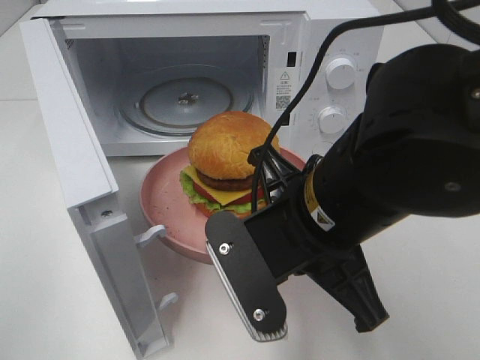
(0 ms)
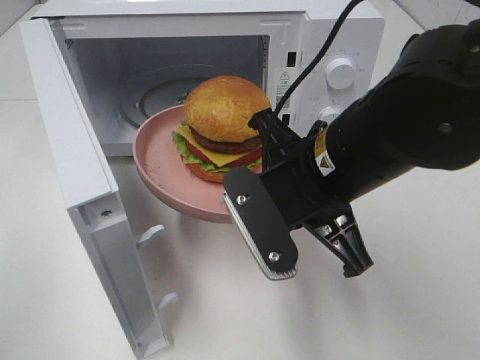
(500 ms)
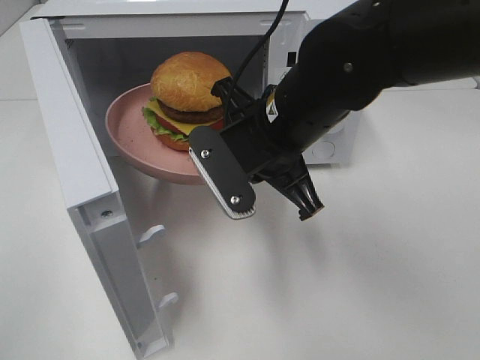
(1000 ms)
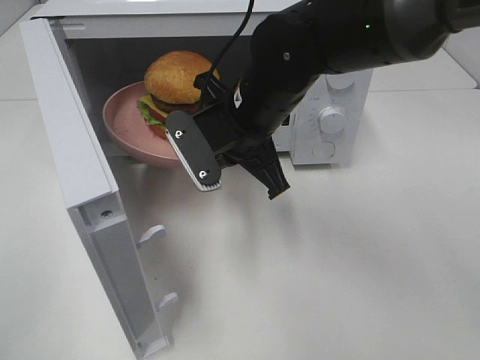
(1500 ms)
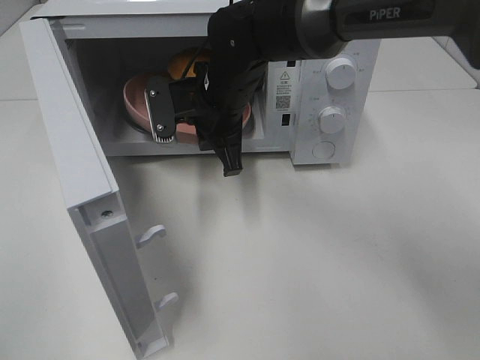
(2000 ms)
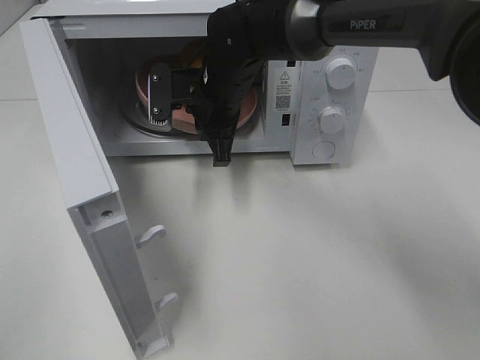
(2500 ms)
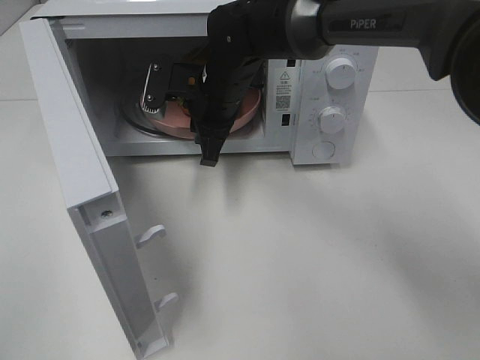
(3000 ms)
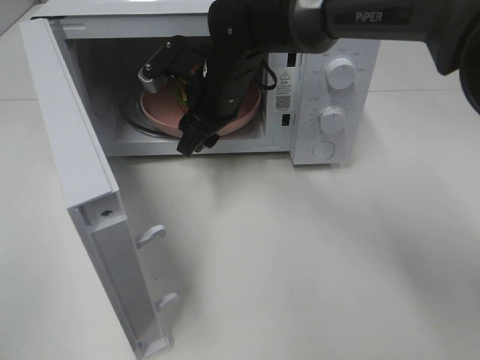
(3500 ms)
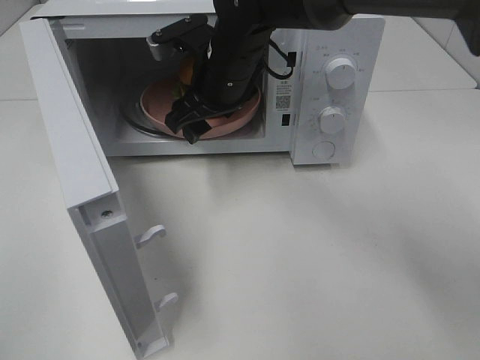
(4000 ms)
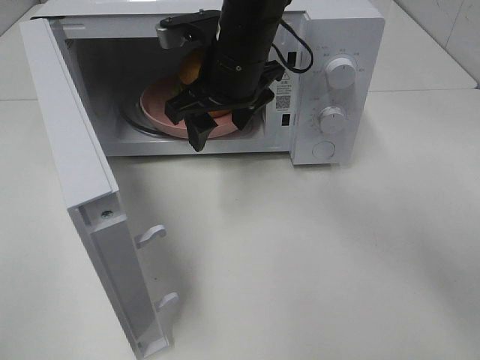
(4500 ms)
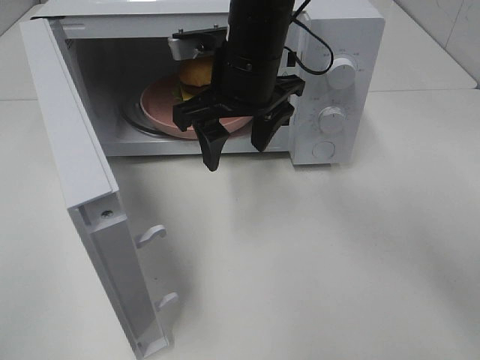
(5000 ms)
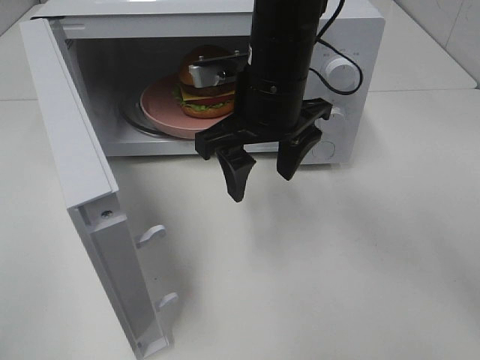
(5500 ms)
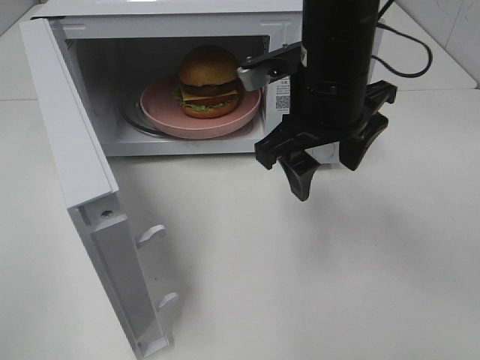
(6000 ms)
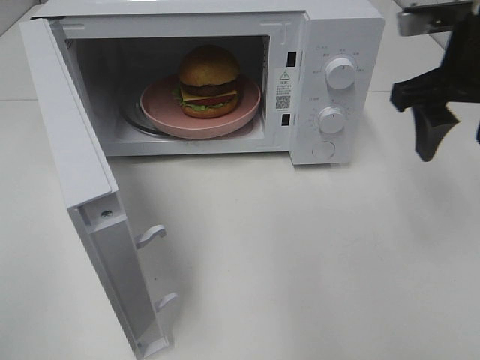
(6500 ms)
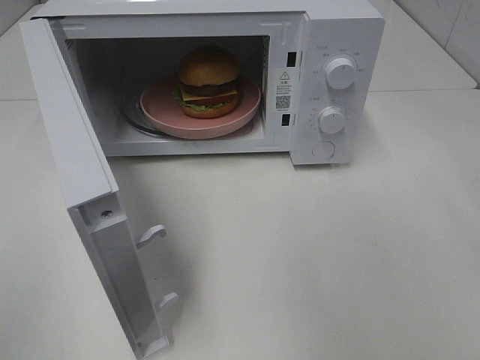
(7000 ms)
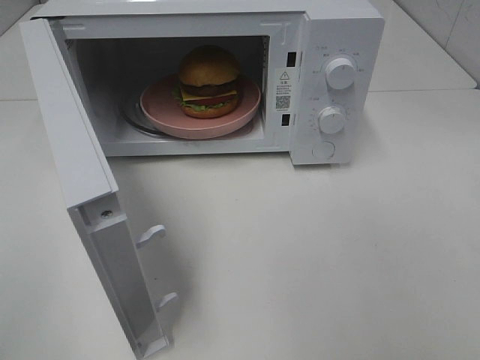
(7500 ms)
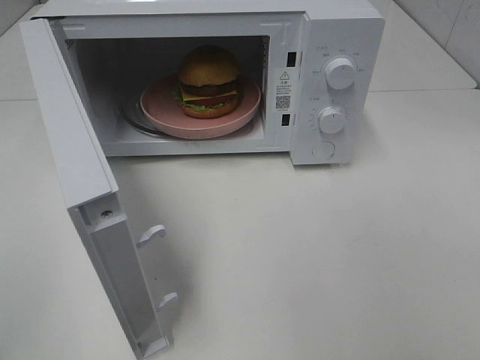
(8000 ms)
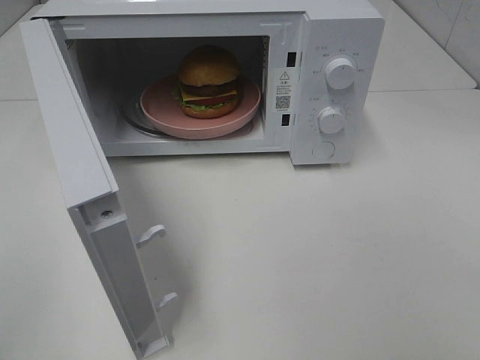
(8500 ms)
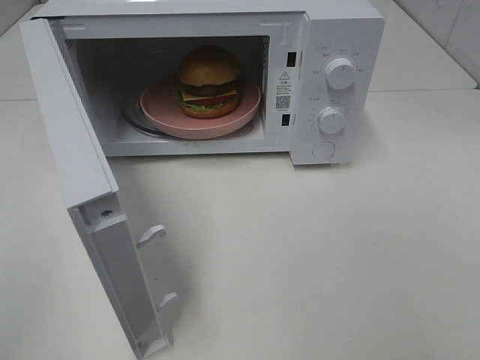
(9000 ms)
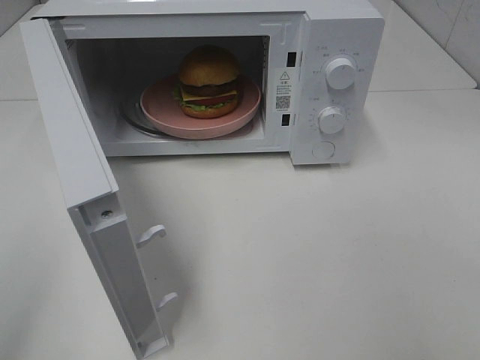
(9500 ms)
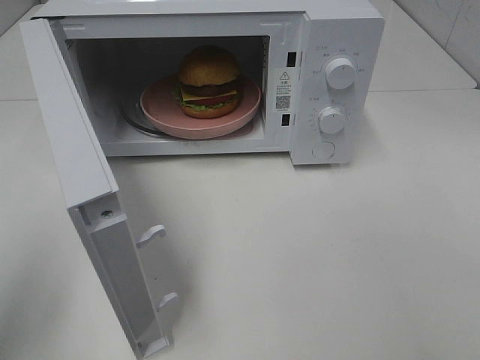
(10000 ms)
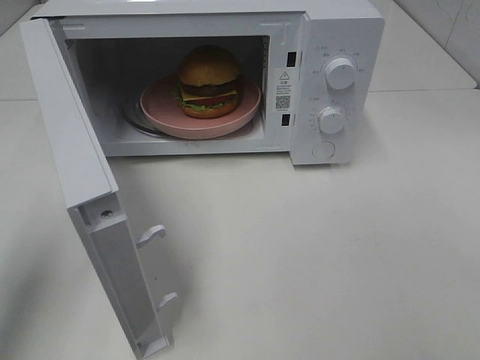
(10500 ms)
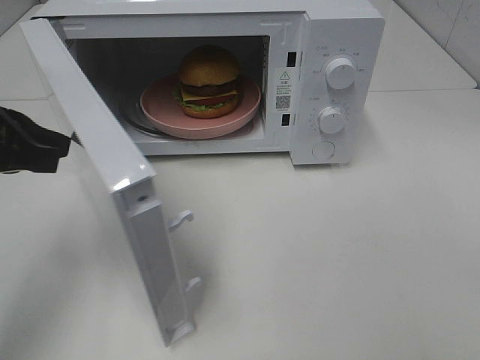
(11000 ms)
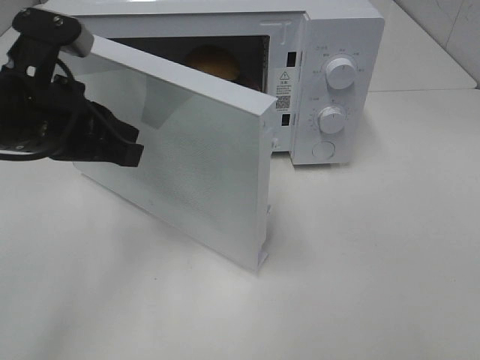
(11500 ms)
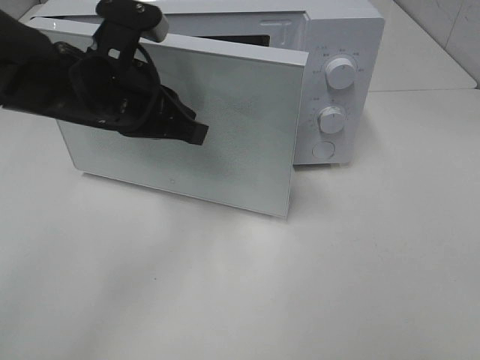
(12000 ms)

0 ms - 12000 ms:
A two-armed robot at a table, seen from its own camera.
Task of the whole recording: Heat the burger.
Step, 0 ms - 3000 ms: Right hand: place the plate in the microwave.
0 ms - 2000 ms: The right gripper goes roughly 20 cm forward.
2000 ms - 4000 ms: The right gripper opens.
4000 ms - 6000 ms: The right gripper goes some 15 cm backward and to the right.
6000 ms - 8000 ms: The right gripper heads backward and to the right, covering some 35 cm.
8000 ms - 10000 ms: The left gripper goes approximately 10 cm forward.
10000 ms - 12000 ms: The left gripper travels to the right, forward and downward by roughly 25 cm.

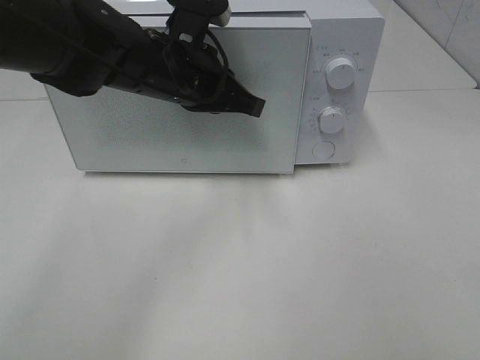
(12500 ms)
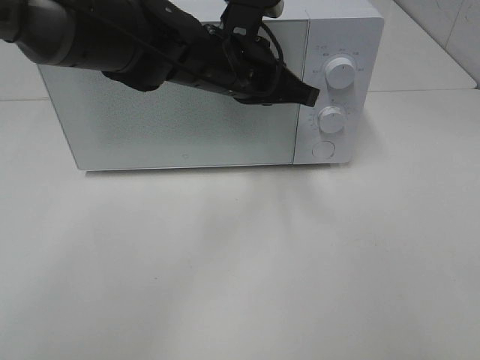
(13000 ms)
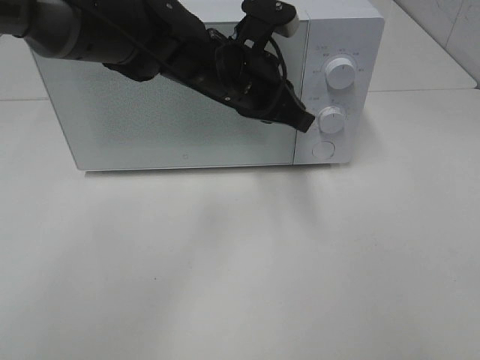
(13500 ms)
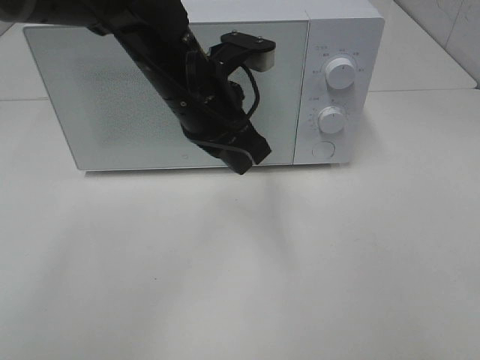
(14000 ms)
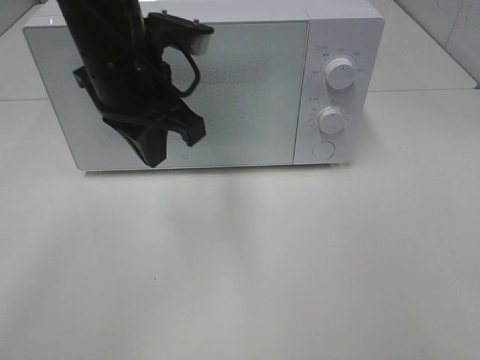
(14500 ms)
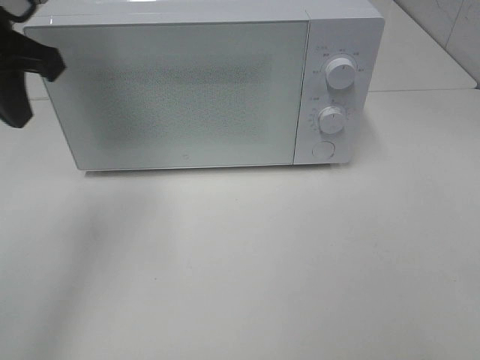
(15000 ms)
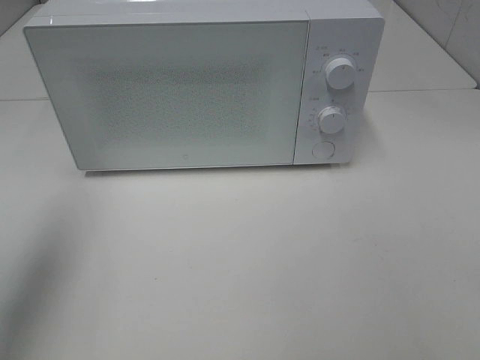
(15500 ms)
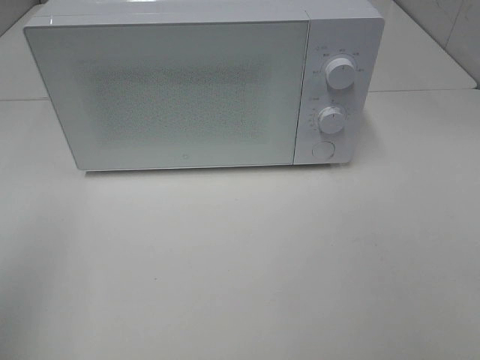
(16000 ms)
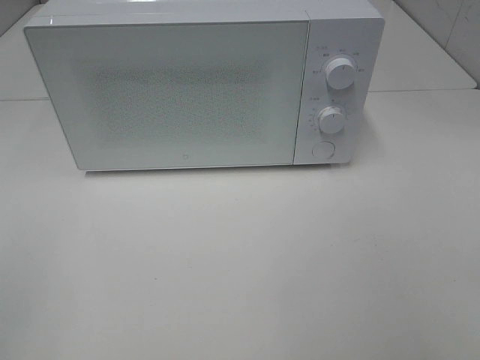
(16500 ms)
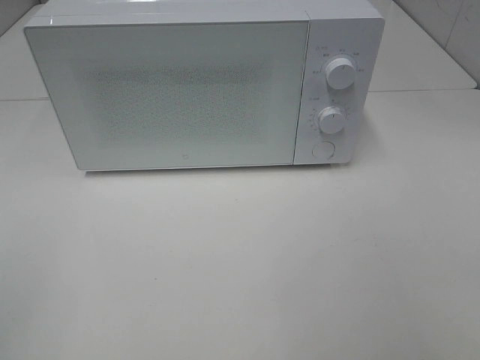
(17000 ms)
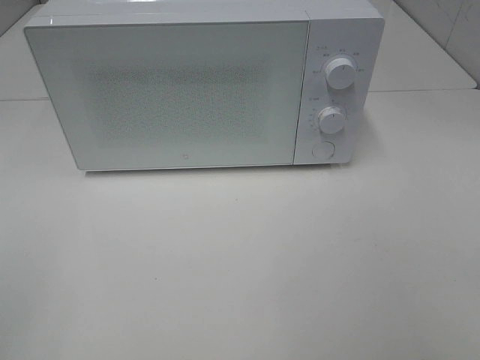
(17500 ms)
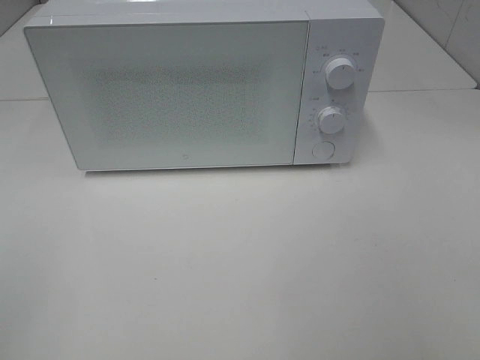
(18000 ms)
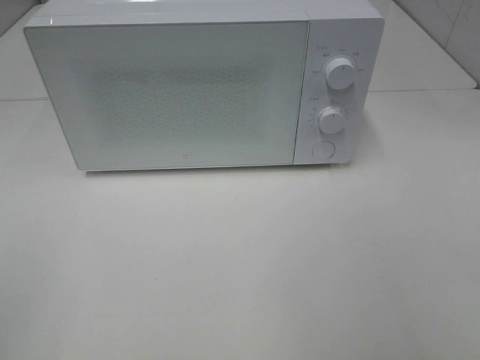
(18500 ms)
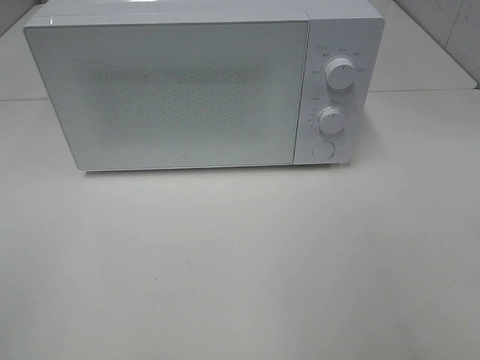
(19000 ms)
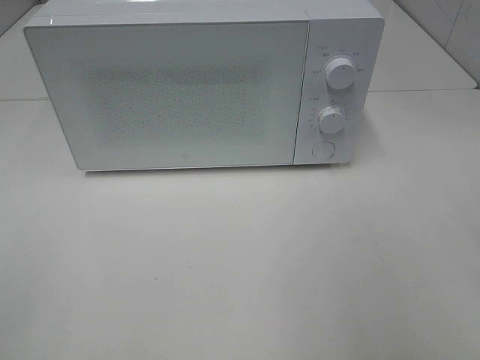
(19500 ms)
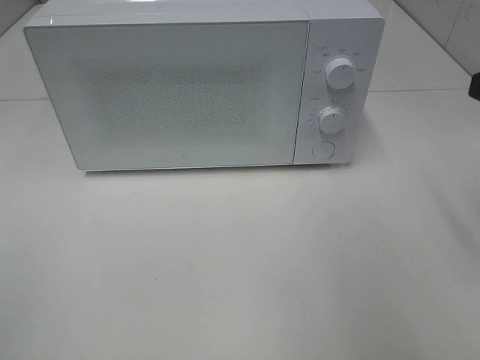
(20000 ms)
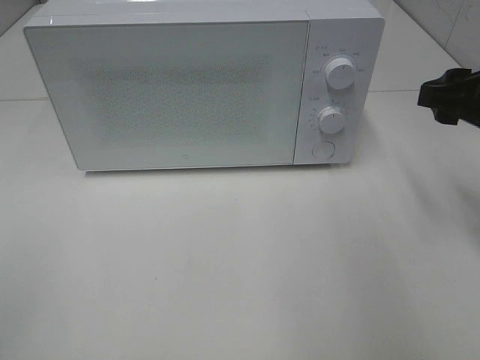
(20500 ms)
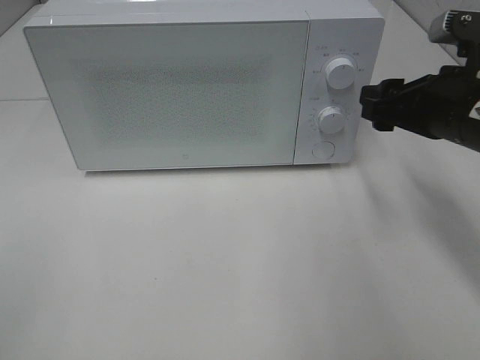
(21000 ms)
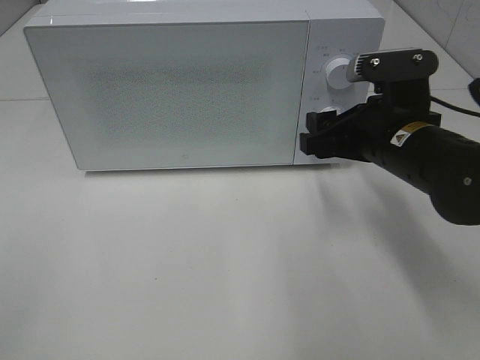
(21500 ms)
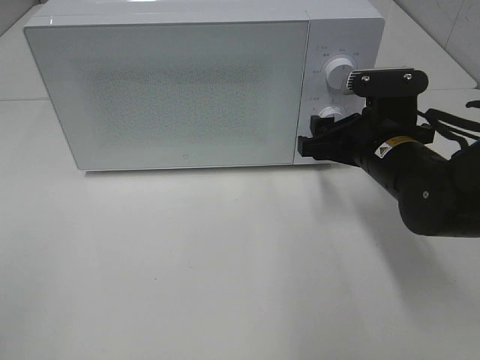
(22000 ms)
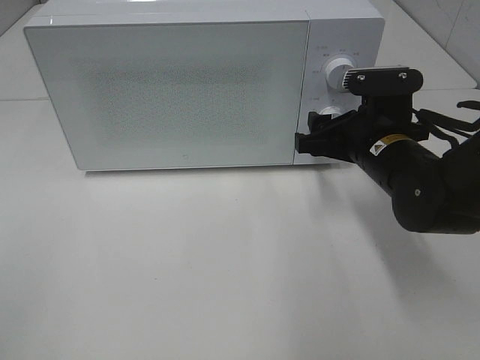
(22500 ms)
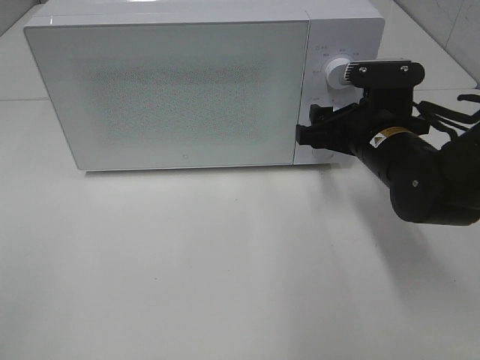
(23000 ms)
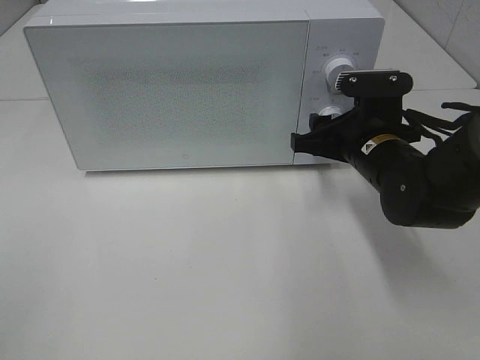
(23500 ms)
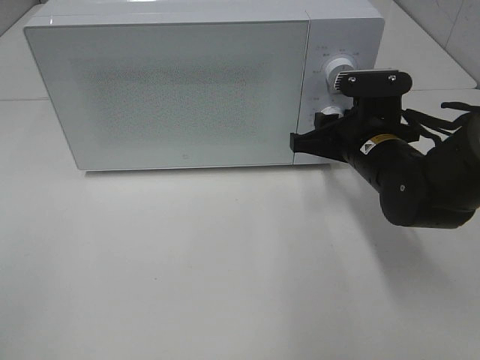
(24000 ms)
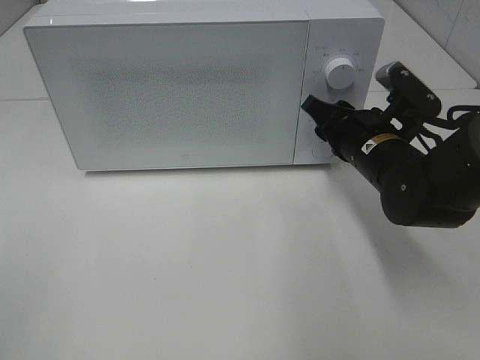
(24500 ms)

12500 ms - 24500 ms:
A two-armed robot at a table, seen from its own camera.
Task of the whole recording: Heat the burger.
12500 ms - 14500 ms: The left gripper heads upward, covering approximately 5 cm.
14500 ms - 16500 ms: The left gripper is displaced backward and to the left by about 40 cm.
18500 ms - 20500 ms: The right gripper heads forward, covering roughly 25 cm, and opens.
20500 ms - 22500 ms: The right gripper shifts roughly 15 cm to the left and downward.
22500 ms - 24500 ms: The right gripper closes.

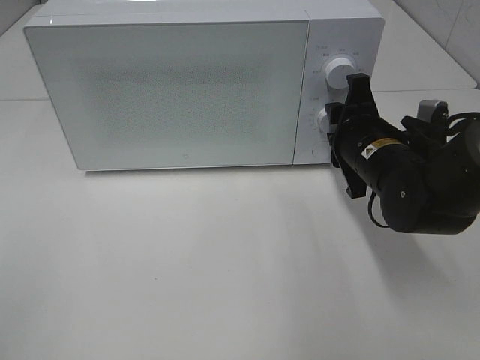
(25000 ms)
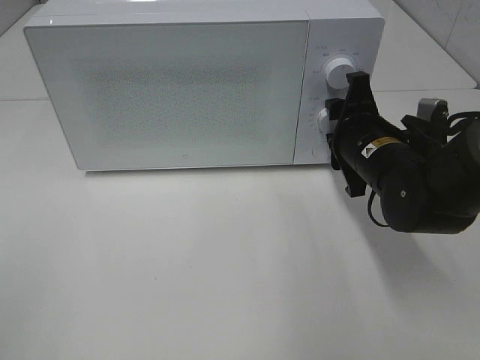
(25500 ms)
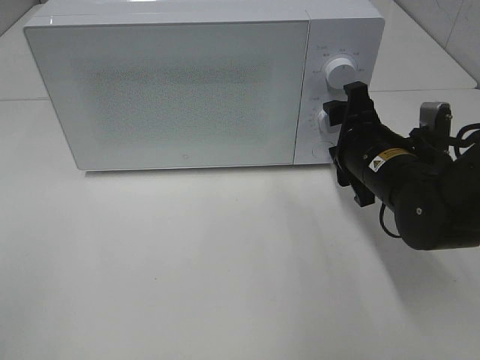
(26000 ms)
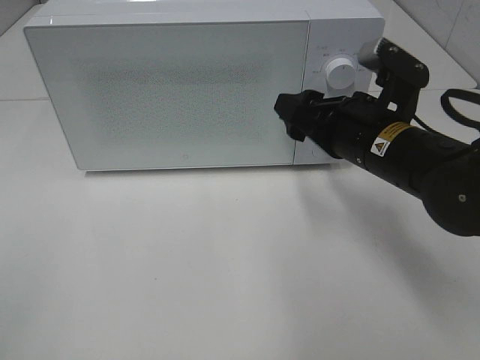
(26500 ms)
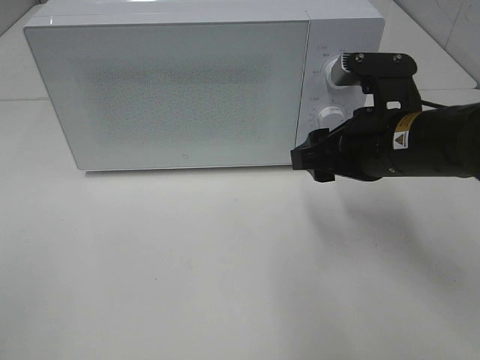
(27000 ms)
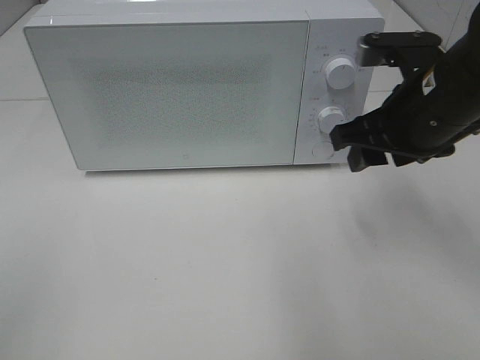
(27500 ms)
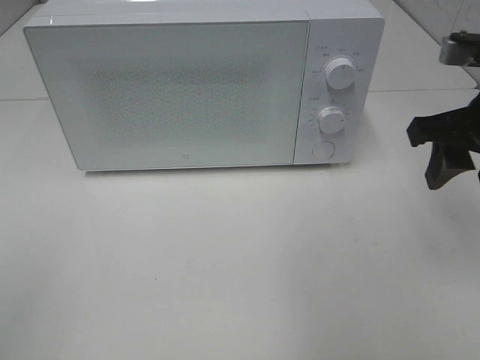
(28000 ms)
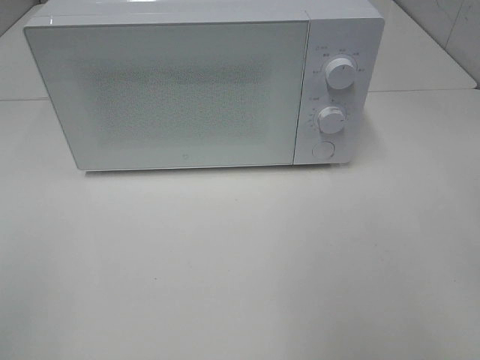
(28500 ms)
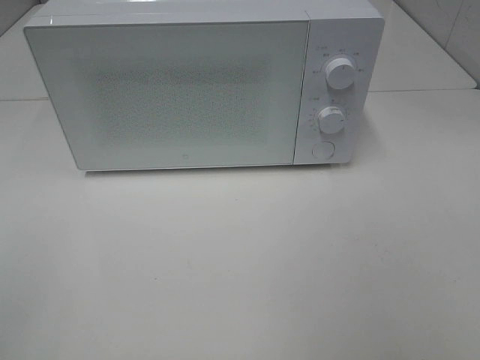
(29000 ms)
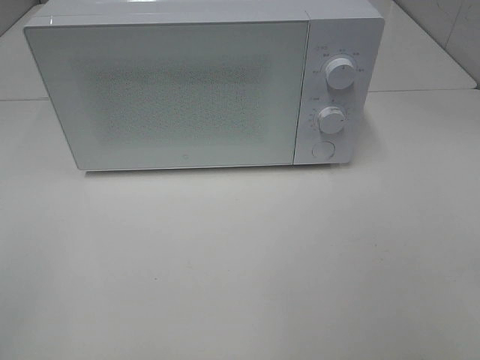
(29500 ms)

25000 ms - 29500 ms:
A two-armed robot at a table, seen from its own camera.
Task of the whole recording: Heat the burger.
25000 ms - 27000 ms: The right gripper is displaced upward and backward by some 10 cm.
27000 ms - 29500 ms: The right gripper shifts about 30 cm backward, to the right and upward.
